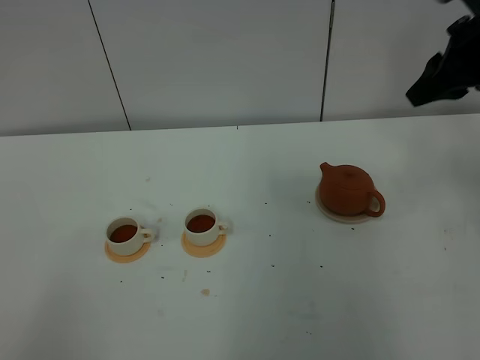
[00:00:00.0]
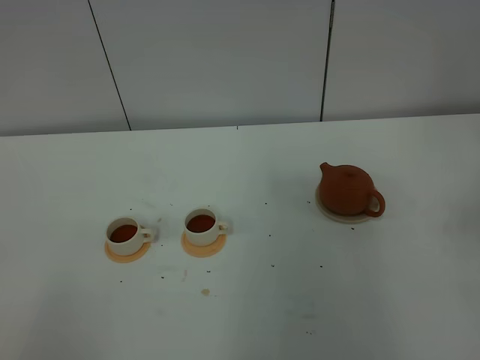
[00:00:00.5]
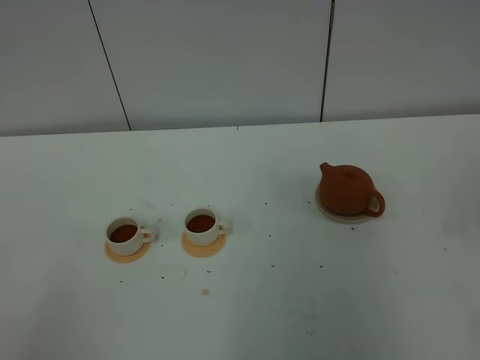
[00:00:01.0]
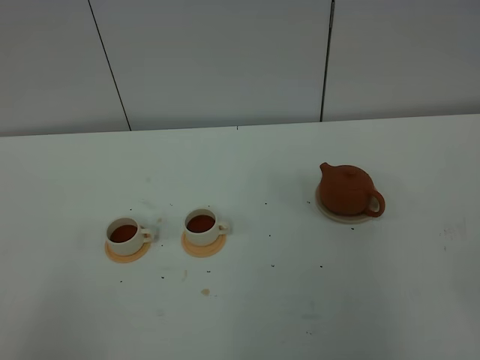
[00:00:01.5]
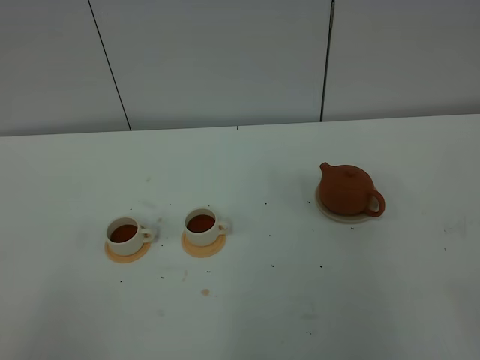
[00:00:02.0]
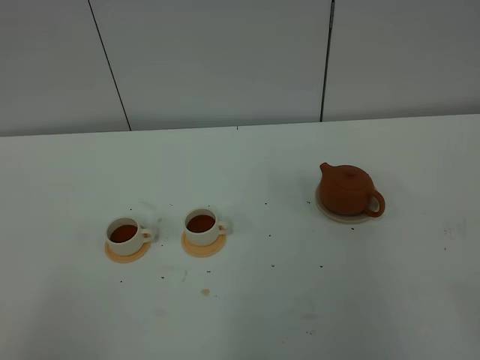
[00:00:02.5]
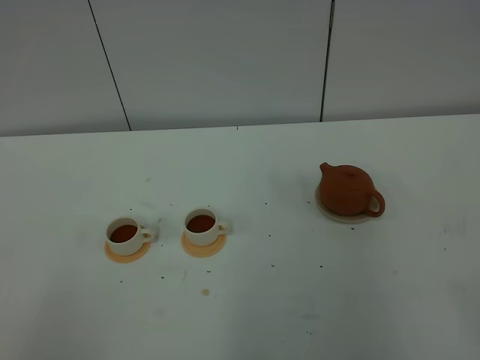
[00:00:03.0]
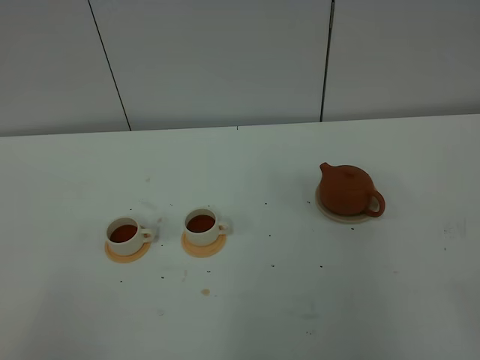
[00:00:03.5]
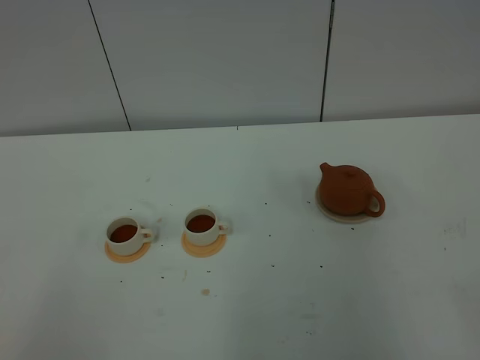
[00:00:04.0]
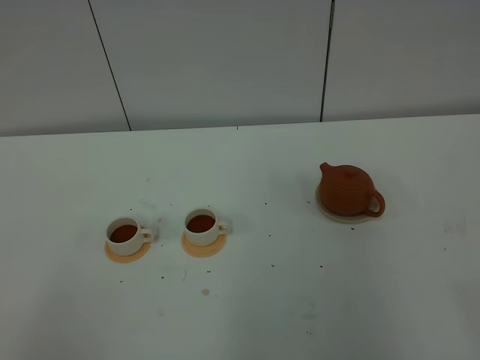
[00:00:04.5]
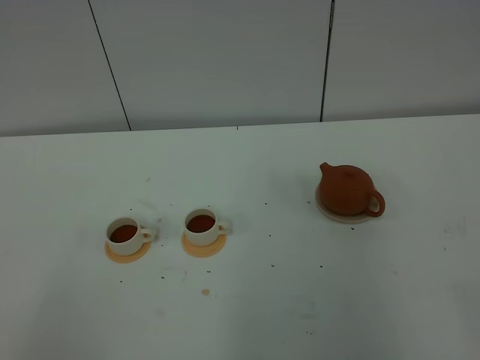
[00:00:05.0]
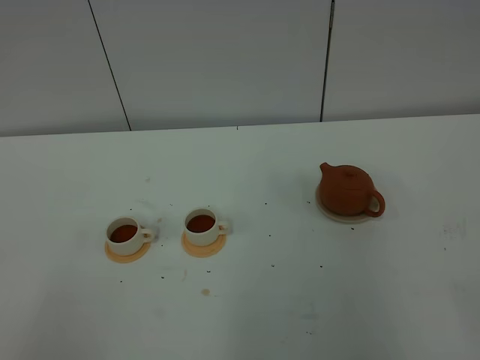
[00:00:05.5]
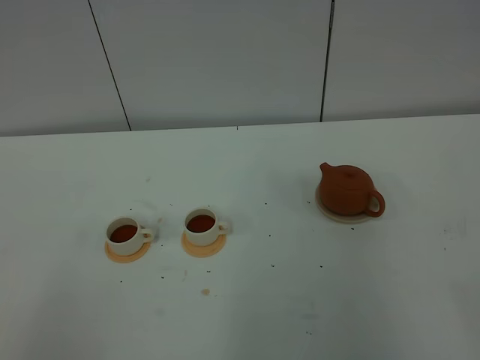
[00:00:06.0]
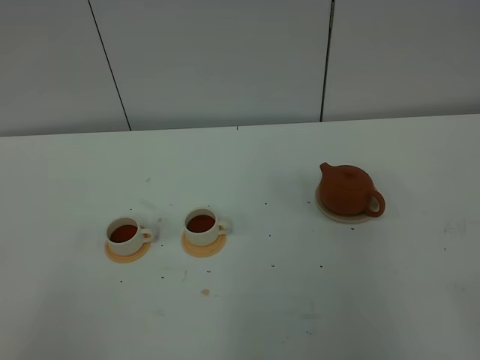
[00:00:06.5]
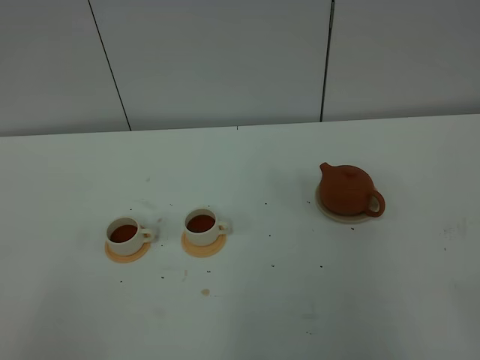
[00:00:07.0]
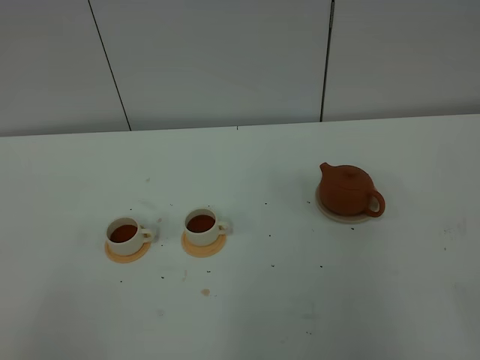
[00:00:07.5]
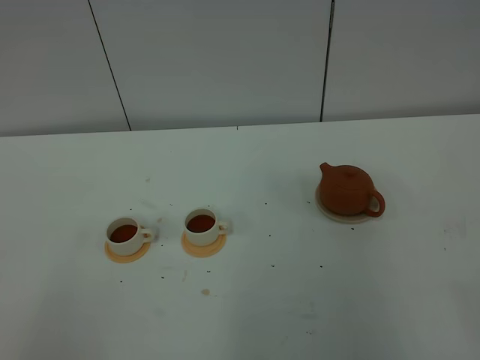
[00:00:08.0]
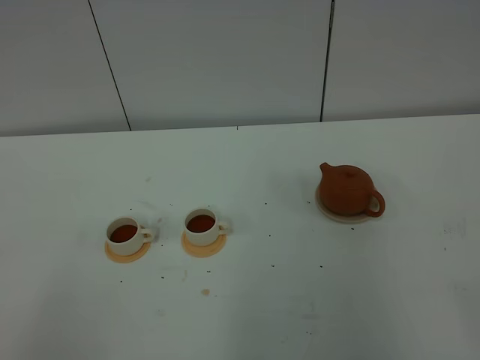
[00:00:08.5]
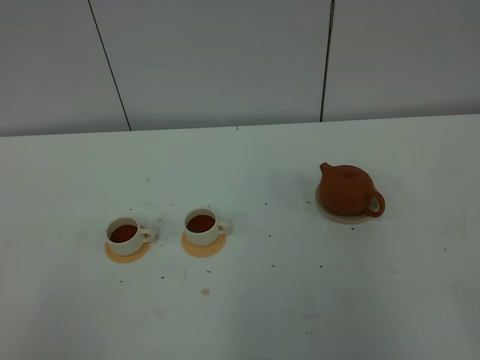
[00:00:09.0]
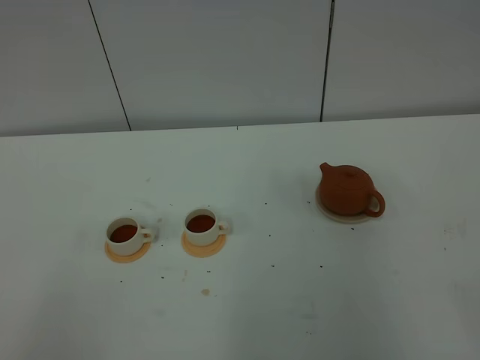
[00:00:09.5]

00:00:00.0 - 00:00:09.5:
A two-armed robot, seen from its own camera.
Task of the whole recording: grasp the brown teapot and pour the tea into the two white teacups one by one, put the brown teapot back in its original place.
00:00:00.0 - 00:00:02.0: The right gripper travels backward by roughly 40 cm.
00:00:02.0 - 00:00:09.5: Neither gripper changes place.
